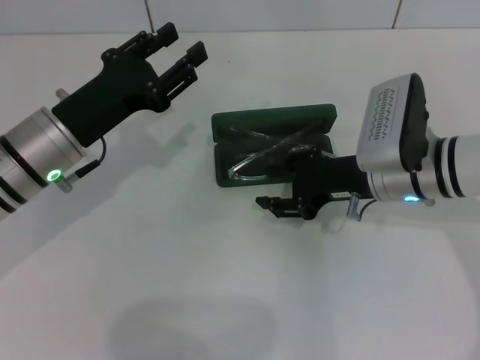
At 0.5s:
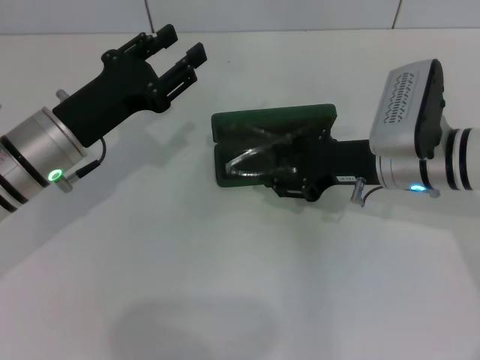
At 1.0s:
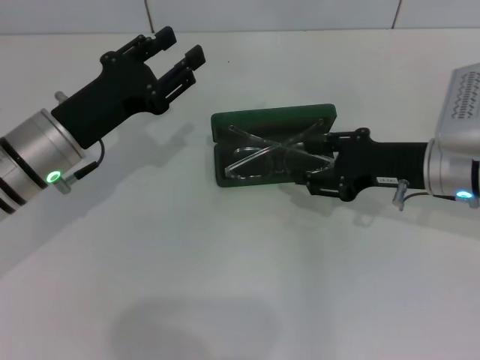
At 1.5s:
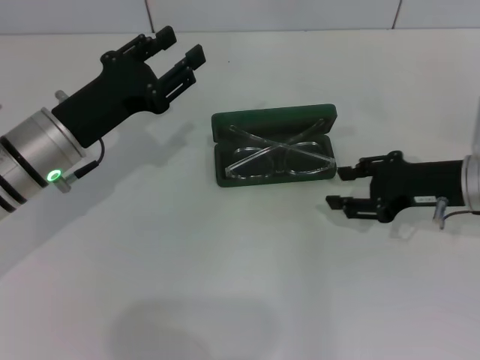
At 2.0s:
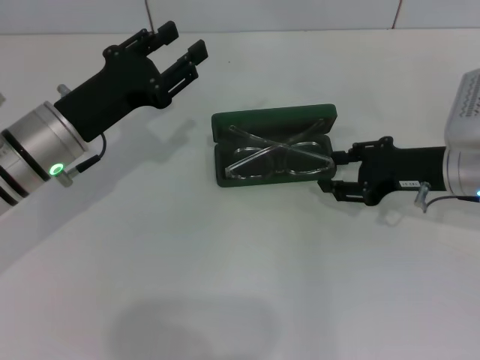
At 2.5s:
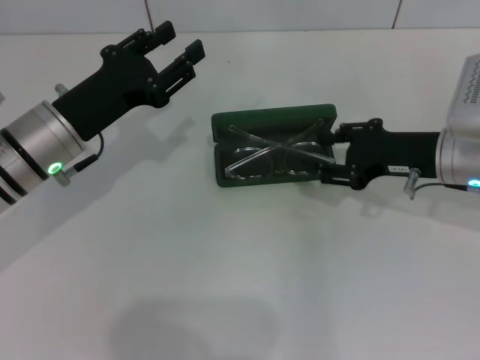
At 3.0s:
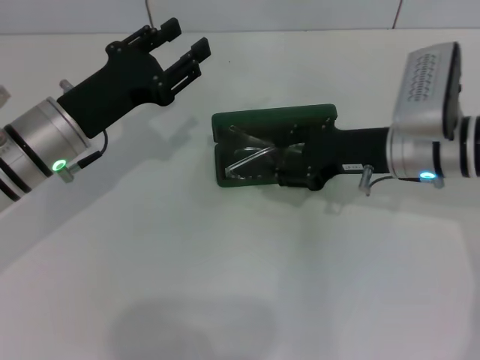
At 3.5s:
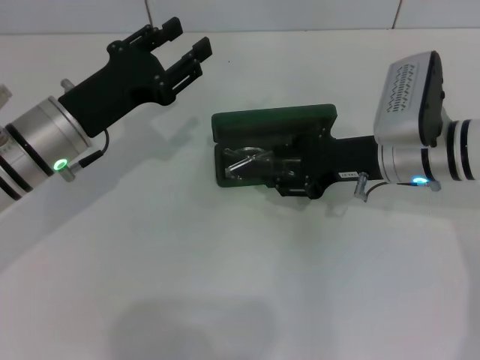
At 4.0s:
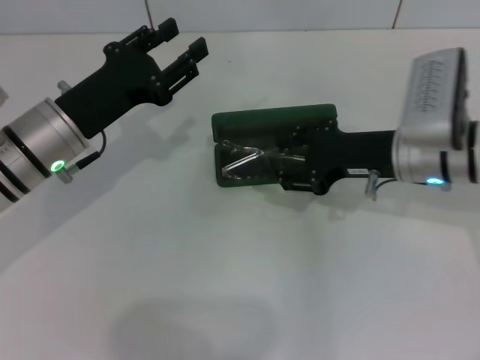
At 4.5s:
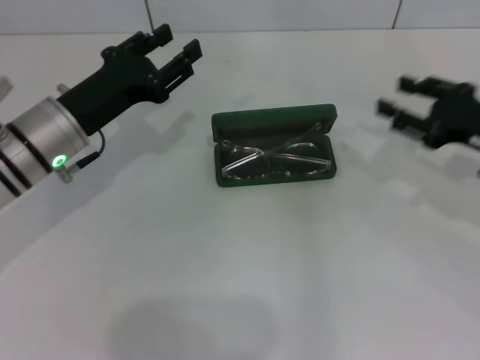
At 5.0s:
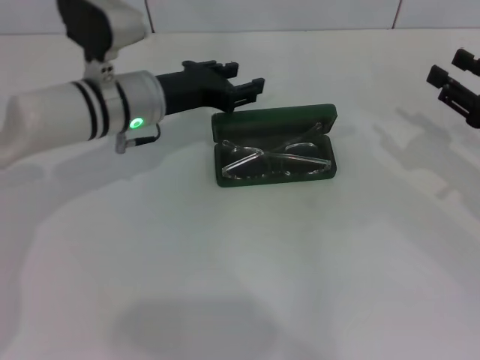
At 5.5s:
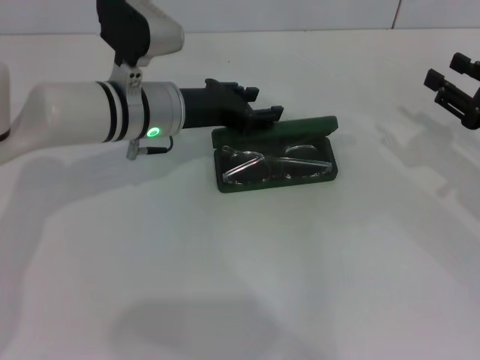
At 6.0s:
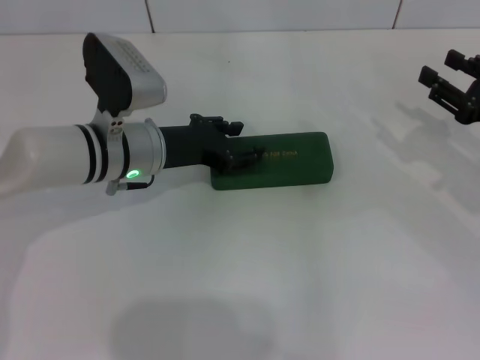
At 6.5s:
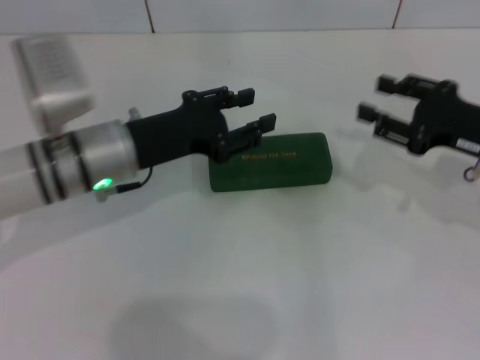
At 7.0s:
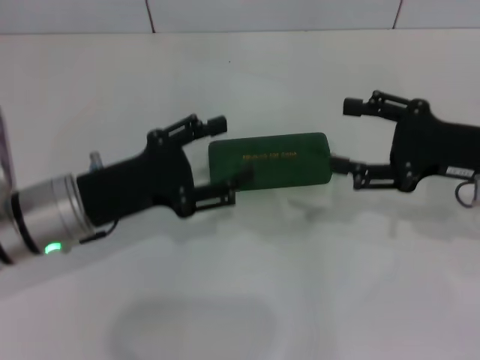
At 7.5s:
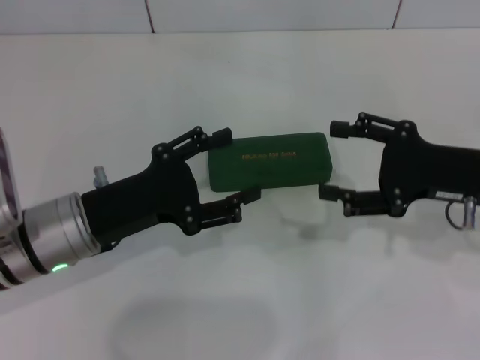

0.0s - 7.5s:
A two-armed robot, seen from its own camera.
Step, 0.0s - 4.0s: Put the glasses into the case with your right hand.
Step, 4.5s - 5.5s: Close the glasses case with your left hand.
0.0s - 2.0s: The right gripper shifts some 5 cm to the right.
2.0s - 4.0s: The right gripper shifts approximately 5 cm to the left.
4.0s - 5.5s: The right gripper travels to the right by approximately 15 cm, while the left gripper goes about 10 cm to the right and forward.
5.5s - 7.5s: The left gripper goes roughly 15 cm backward and to the left, and opens. Meanwhile the right gripper is displaced to the left by roughly 5 cm, and opens its fingers.

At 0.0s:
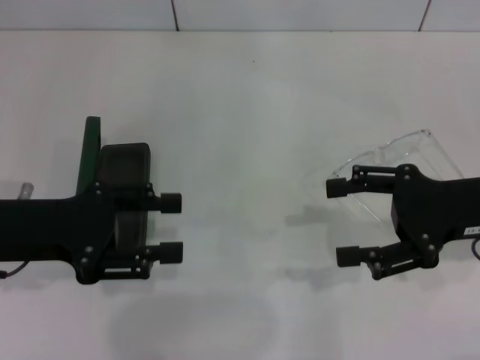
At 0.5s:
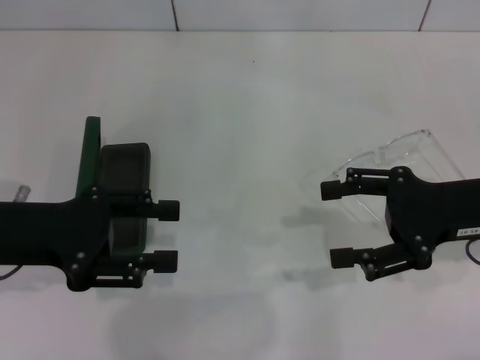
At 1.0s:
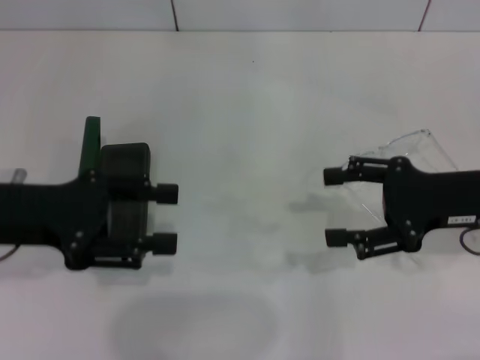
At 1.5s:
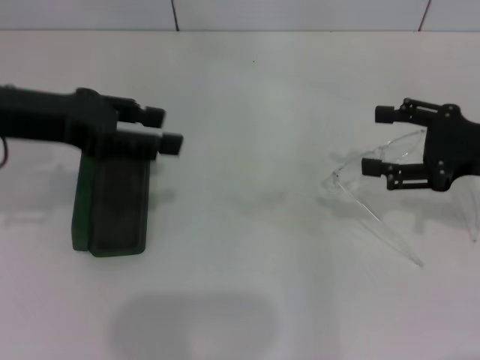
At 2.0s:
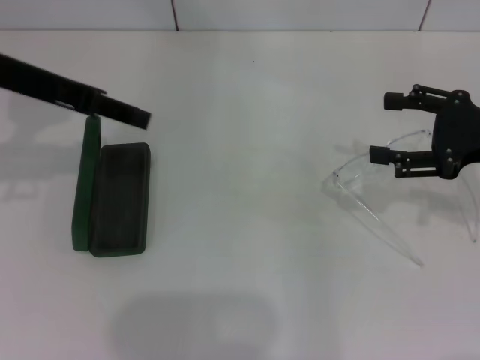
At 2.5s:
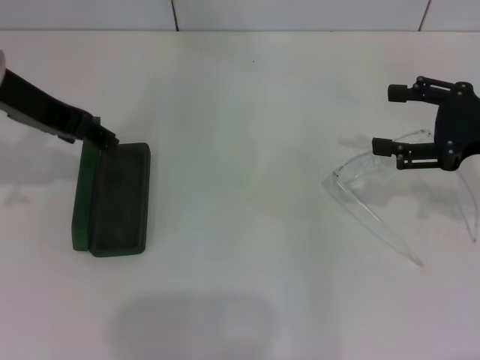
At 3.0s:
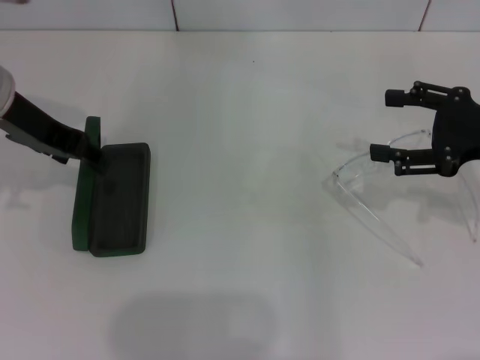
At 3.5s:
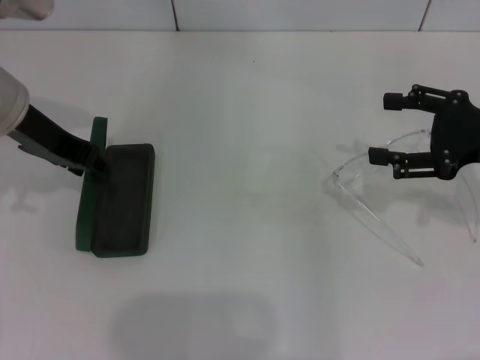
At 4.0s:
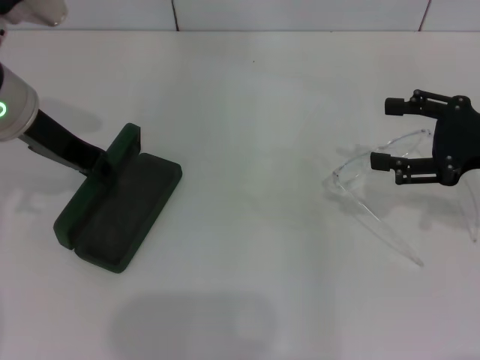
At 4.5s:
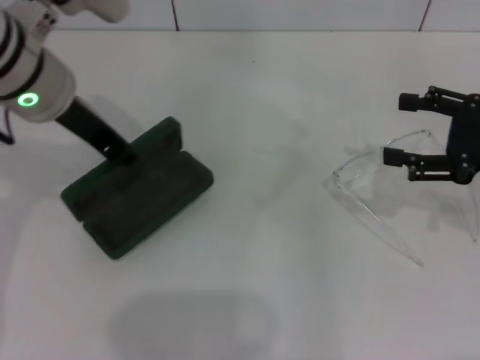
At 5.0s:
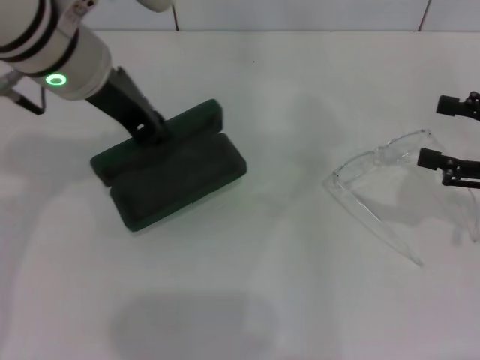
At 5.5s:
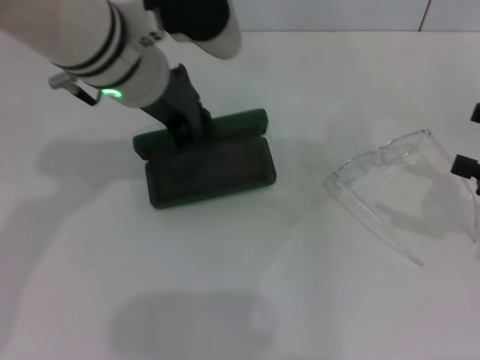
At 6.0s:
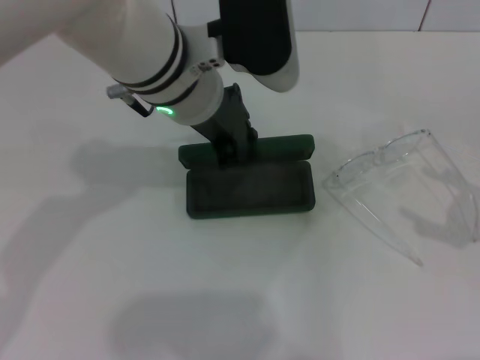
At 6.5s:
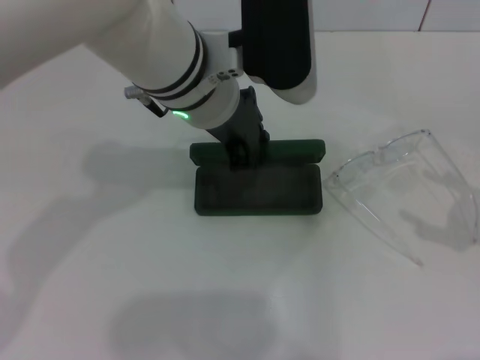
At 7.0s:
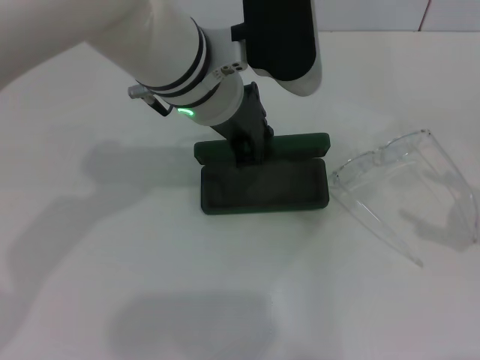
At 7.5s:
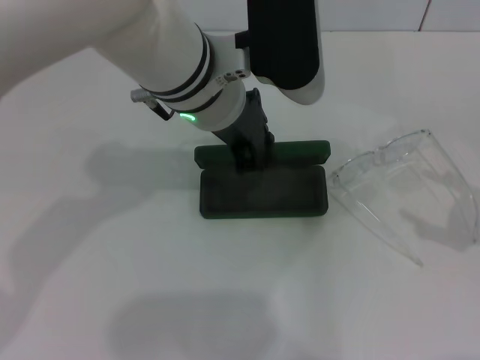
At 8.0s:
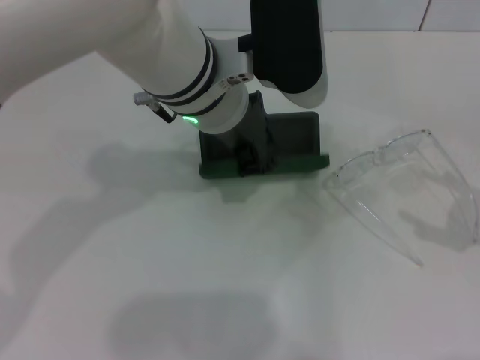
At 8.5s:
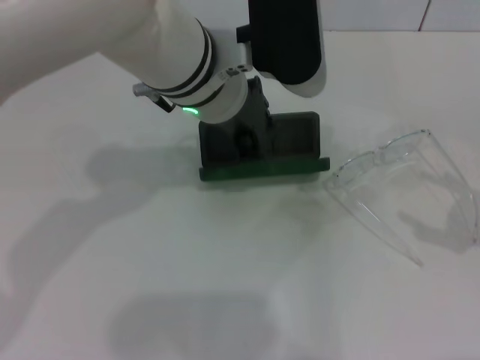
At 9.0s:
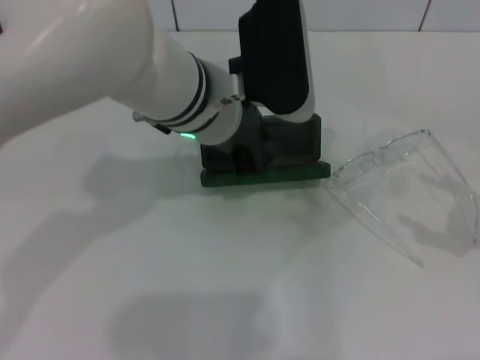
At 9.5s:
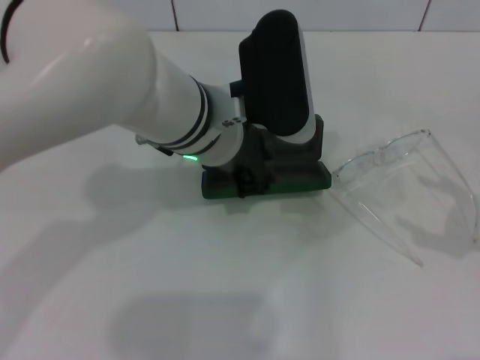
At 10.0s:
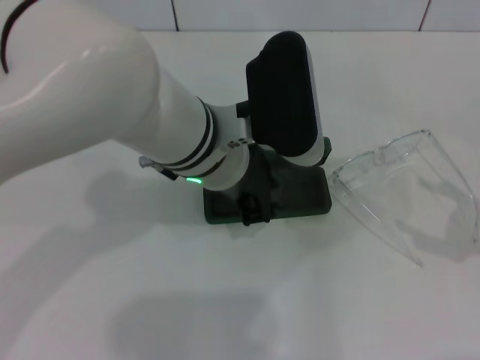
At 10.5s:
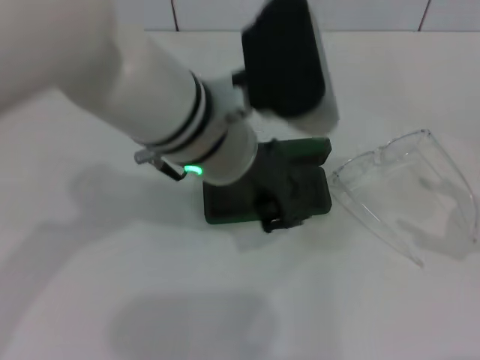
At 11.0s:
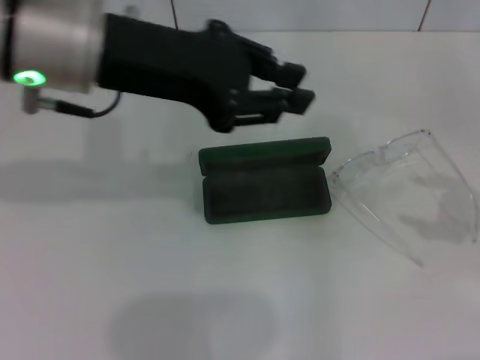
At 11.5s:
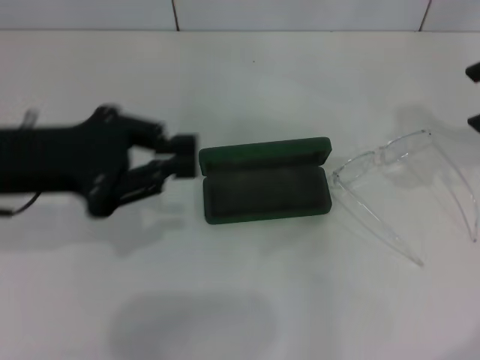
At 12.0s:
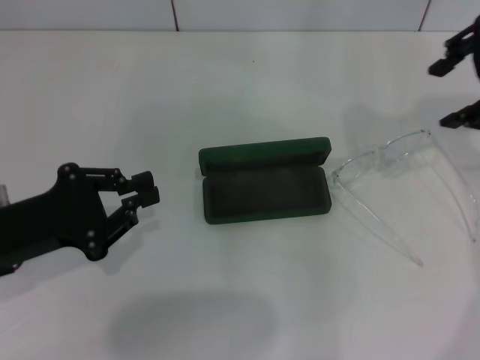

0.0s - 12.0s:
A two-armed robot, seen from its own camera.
Step, 0.0s - 3.5s: Grab the glasses case with your left hand.
Step, 4.0s - 11.0s: Place the glasses case in the center of the table with your left hand.
0.0s - 2.0s: The right gripper moves some 5 cm. The left gripper shifts about 15 cm upward and forward.
2.0s - 4.0s: The left gripper ends up about 5 cm from where it was, and closes up.
4.0s - 6.0s: The right gripper moves backward and to the right, roughly 10 cm. The left gripper shifts about 15 cm to the right.
6.0s - 8.0s: The grippers move only a little.
10.0s - 12.0s: The left gripper goes roughly 25 cm to the left; the right gripper moves upward, forward and to the left, roughly 25 cm.

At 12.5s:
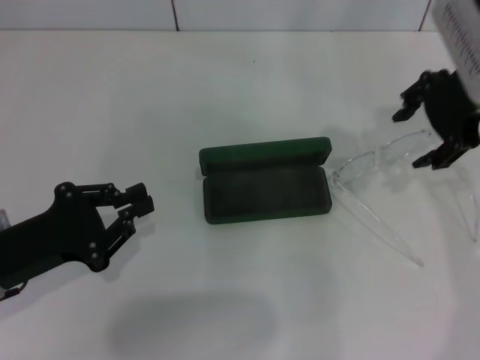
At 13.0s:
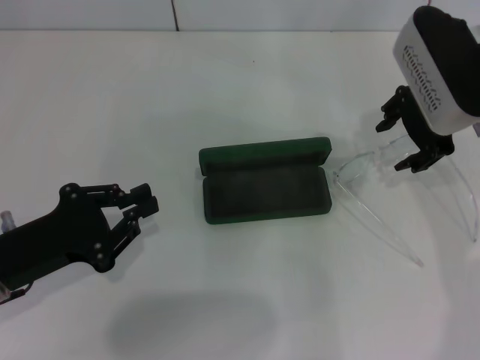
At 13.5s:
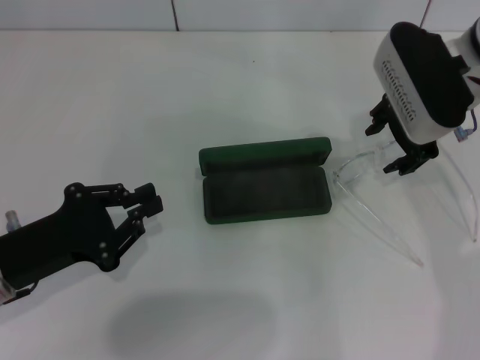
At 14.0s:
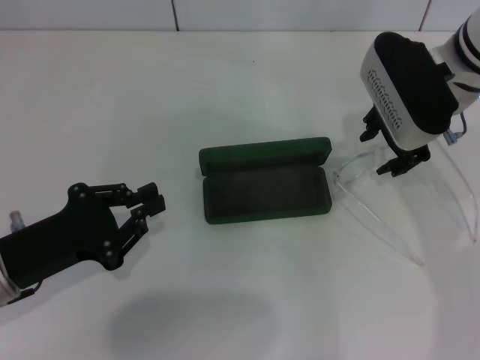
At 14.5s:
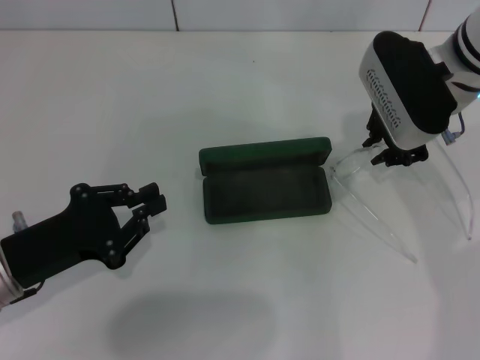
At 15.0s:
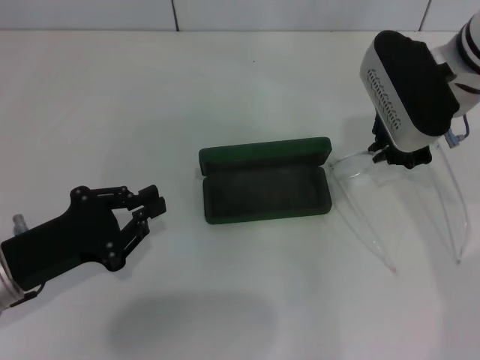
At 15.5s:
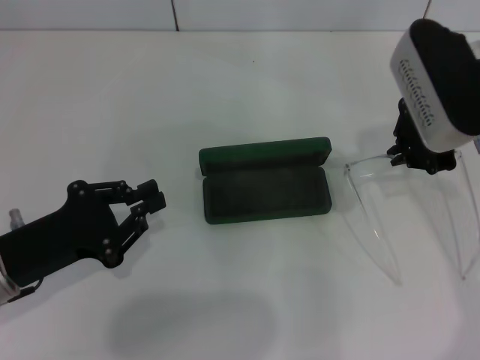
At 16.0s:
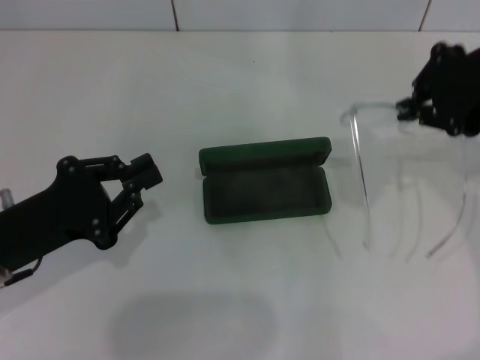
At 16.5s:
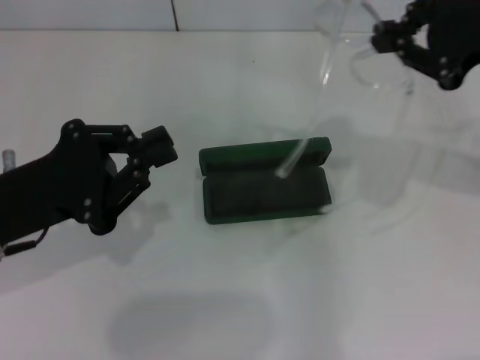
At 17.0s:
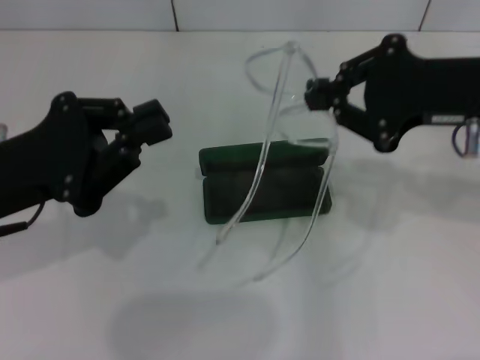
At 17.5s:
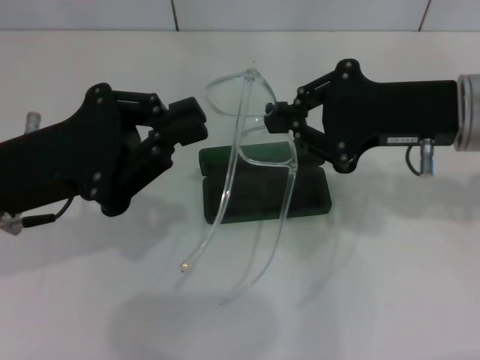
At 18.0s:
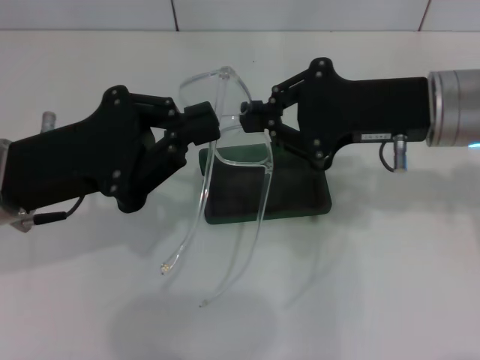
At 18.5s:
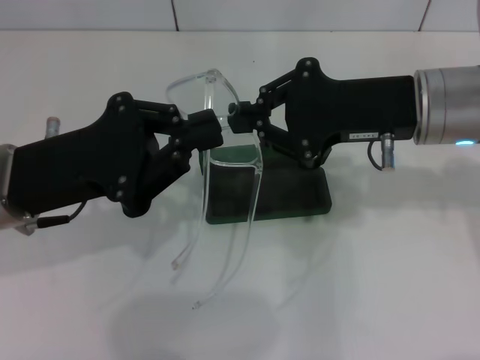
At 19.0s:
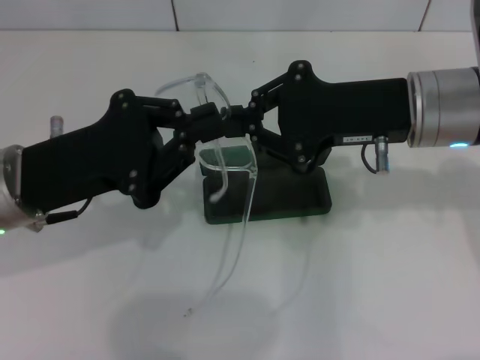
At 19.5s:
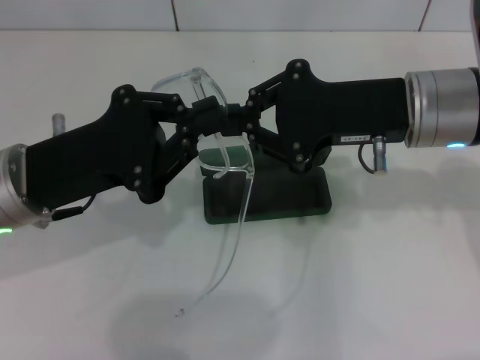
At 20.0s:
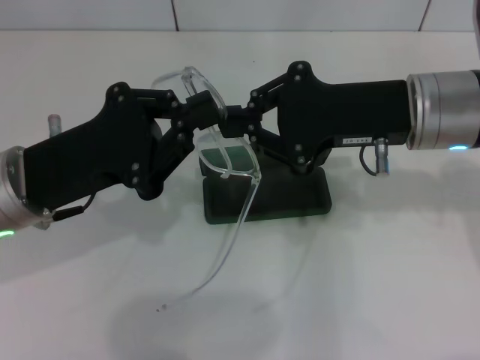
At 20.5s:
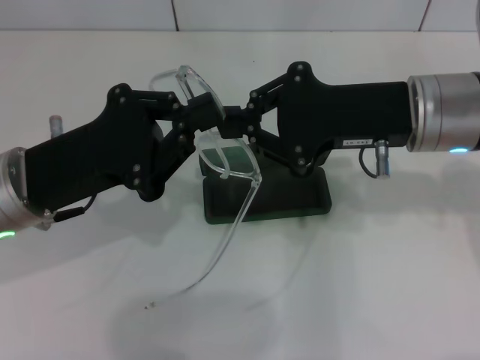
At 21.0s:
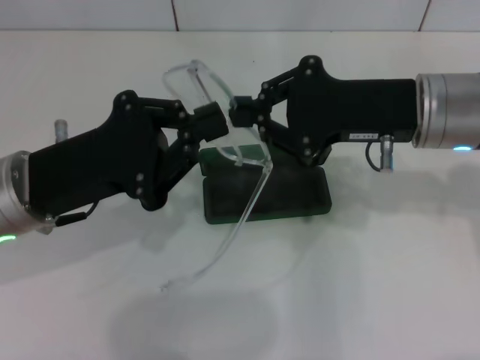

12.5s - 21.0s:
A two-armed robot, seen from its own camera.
Step, 12.5s - 14.5s: Grab the eyeglass frame with your right hand.
12.5s - 14.5s: The right gripper shifts about 5 cm downward, and closes its fingers.
14.5s - 16.5s: The right gripper is displaced upward, backward and to the right by approximately 15 cm. The left gripper travels upward by about 5 cm.
16.5s - 19.0s: The right gripper is displaced to the left and downward by about 10 cm.
19.0s - 21.0s: The grippers make only small movements.
